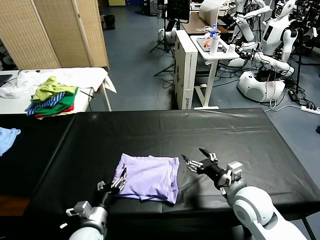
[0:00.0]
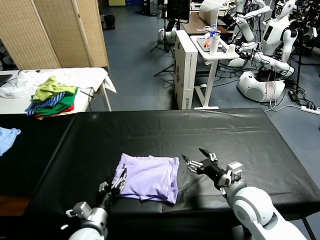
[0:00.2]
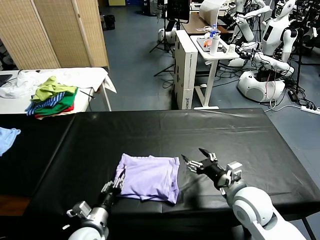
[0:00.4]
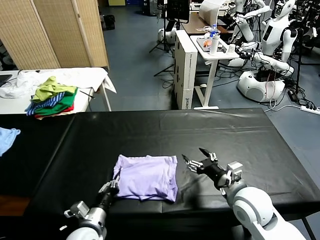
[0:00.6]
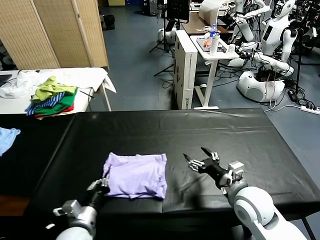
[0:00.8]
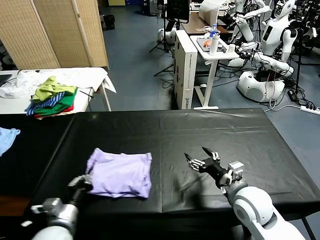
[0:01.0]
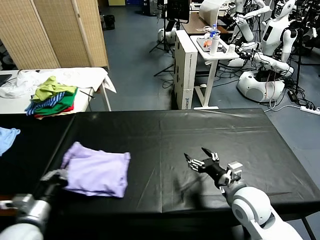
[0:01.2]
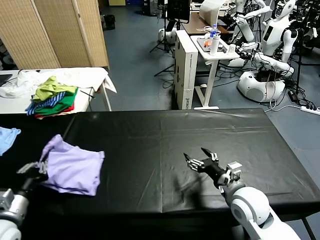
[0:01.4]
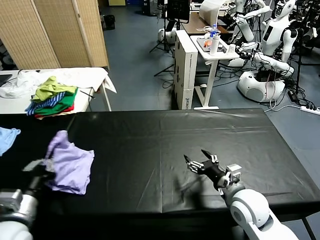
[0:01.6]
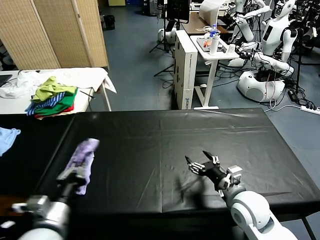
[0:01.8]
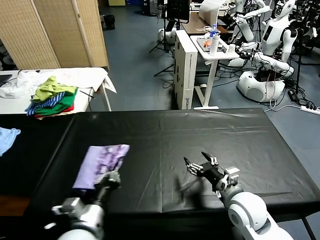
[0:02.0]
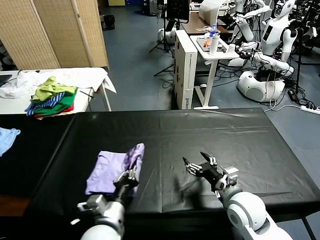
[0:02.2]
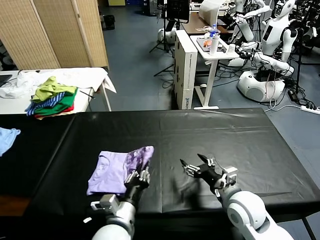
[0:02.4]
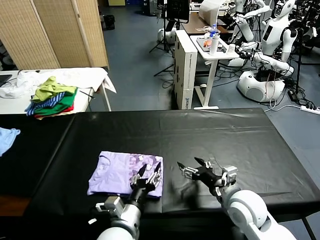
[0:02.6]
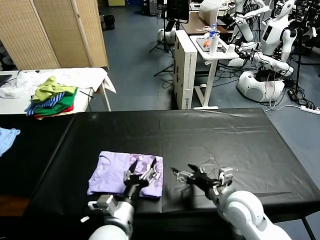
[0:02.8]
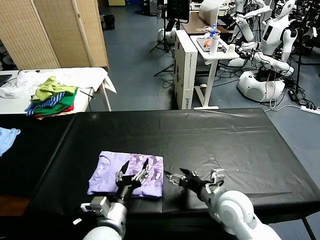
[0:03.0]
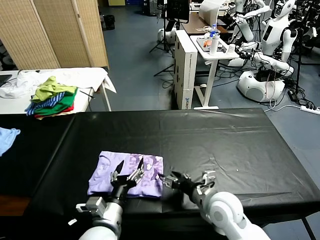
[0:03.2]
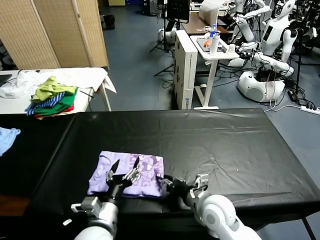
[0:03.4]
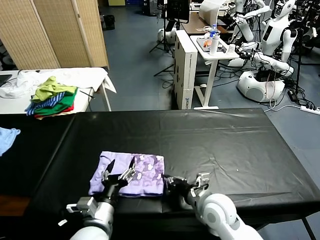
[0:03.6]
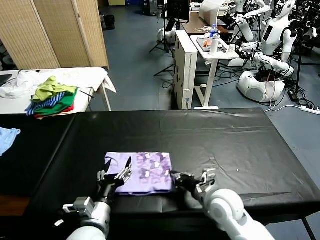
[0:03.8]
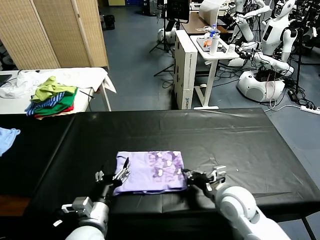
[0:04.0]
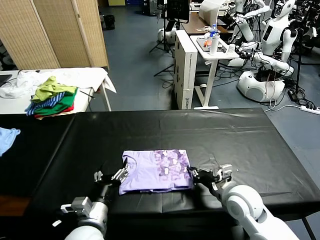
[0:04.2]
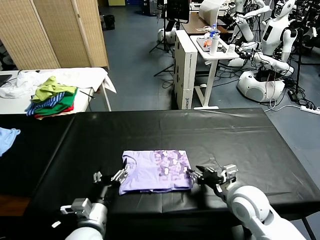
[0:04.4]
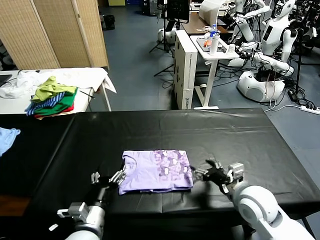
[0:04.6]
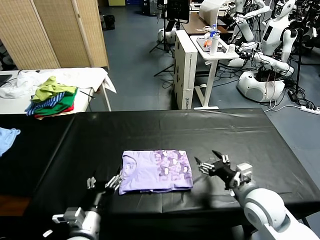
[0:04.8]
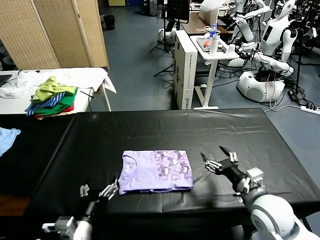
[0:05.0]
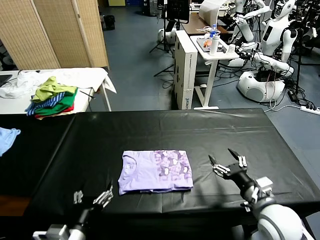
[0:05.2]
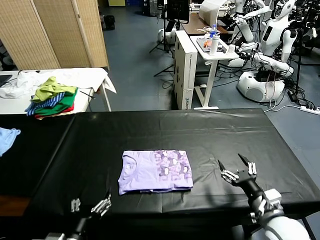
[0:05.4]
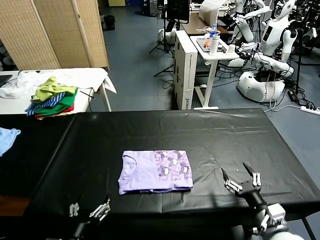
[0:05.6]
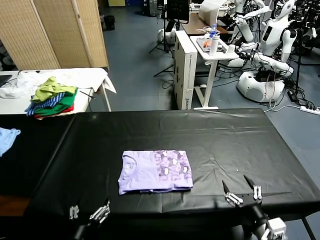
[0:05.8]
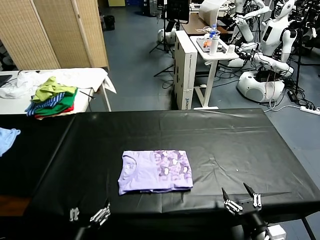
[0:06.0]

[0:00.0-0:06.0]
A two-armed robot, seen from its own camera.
Task of the whole recording: fold and organize the clothes.
Step, 0:00.0 to 0:02.6: Flip the folded clothes over with left gripper.
Step, 0:02.8 to 0:04.4: Drag the clothes to the center of the table.
0:00.0 to 0:01.6: The left gripper heads upward and to the left, covering approximately 20 cm, and closes.
0:01.6 to 0:03.0: The left gripper travels to the right by roughly 20 cm, and opens its fingers.
0:03.0 to 0:04.4: The right gripper closes up. The left gripper heads to the left, covering about 5 cm.
0:04.4 to 0:06.0: The right gripper is displaced backward by approximately 15 cm, and opens, while the left gripper moves backward, roughly 10 cm.
